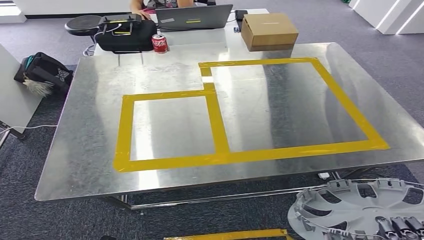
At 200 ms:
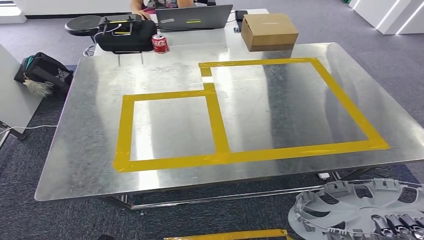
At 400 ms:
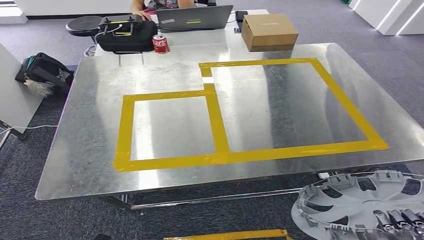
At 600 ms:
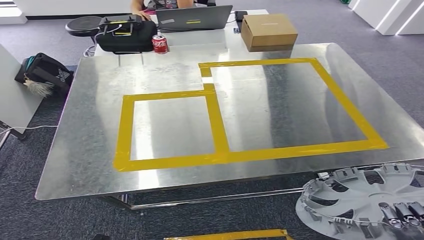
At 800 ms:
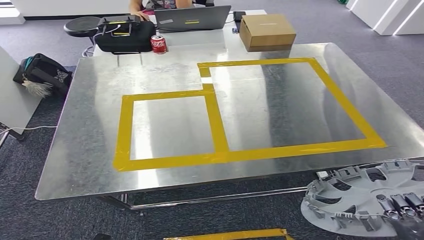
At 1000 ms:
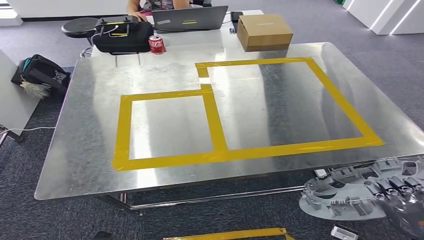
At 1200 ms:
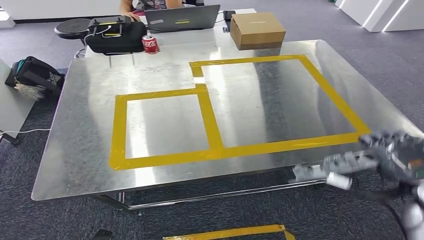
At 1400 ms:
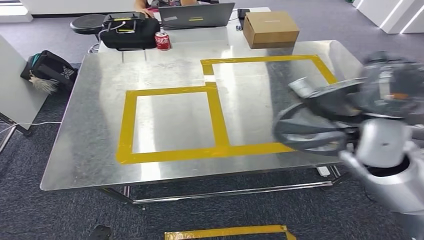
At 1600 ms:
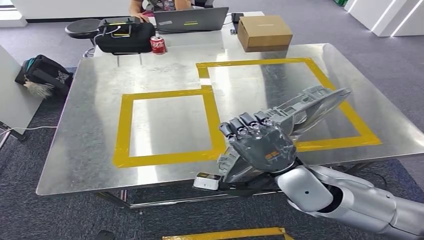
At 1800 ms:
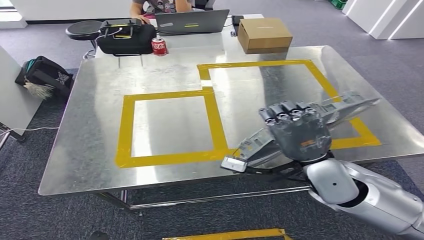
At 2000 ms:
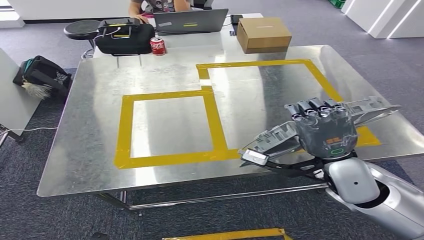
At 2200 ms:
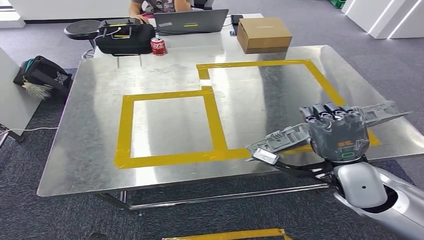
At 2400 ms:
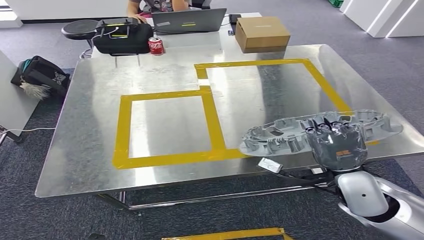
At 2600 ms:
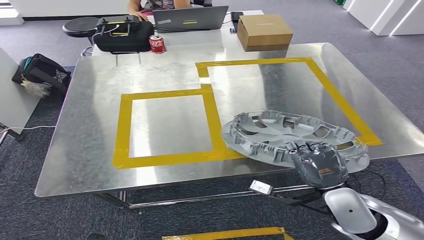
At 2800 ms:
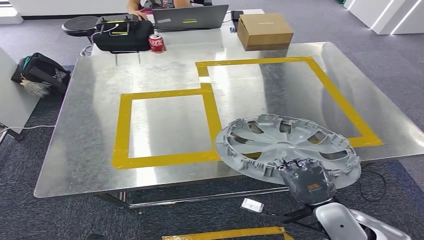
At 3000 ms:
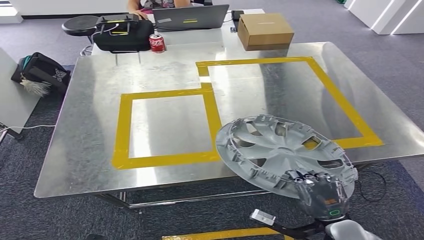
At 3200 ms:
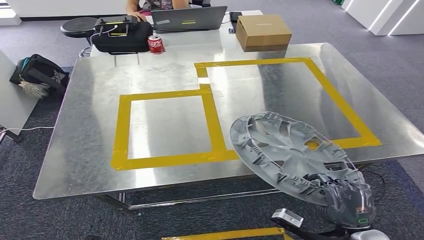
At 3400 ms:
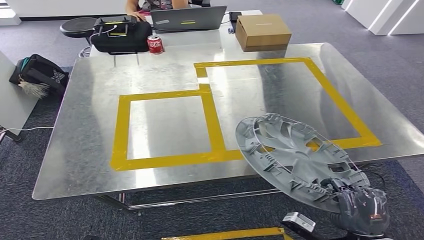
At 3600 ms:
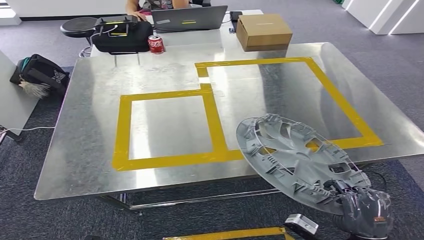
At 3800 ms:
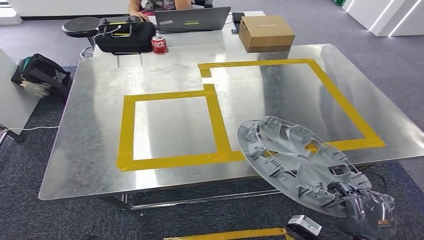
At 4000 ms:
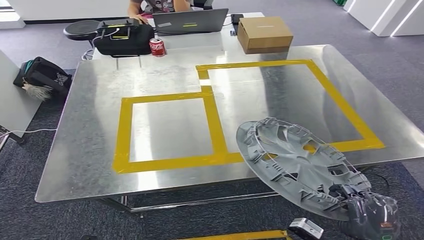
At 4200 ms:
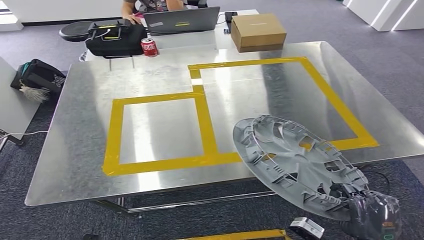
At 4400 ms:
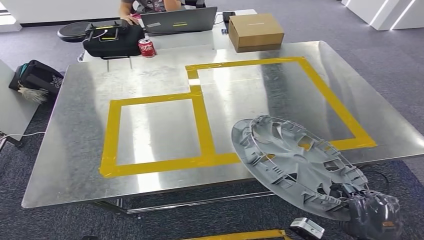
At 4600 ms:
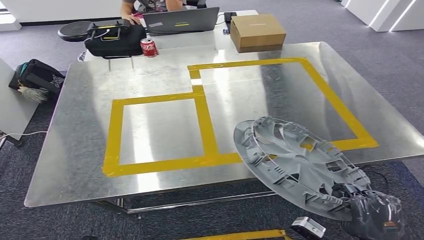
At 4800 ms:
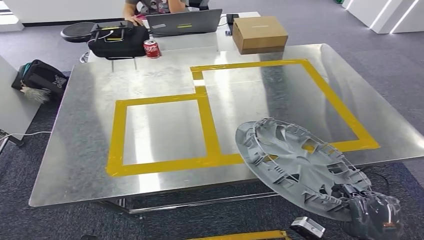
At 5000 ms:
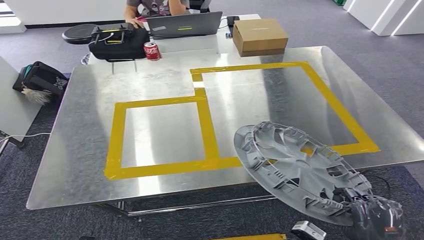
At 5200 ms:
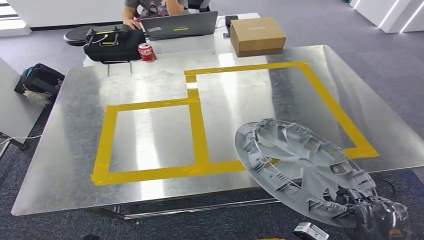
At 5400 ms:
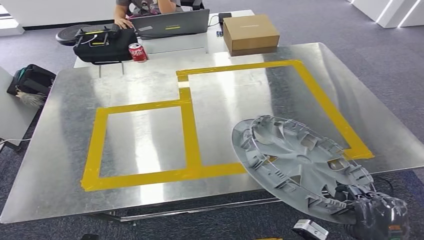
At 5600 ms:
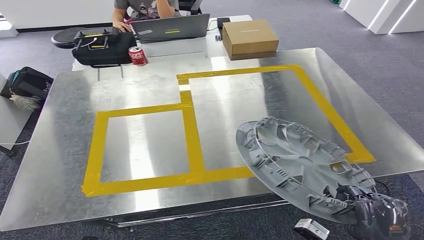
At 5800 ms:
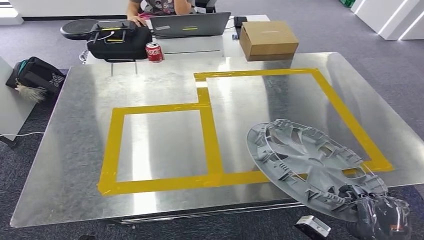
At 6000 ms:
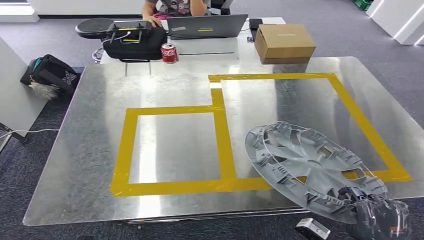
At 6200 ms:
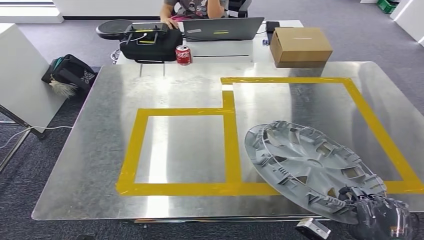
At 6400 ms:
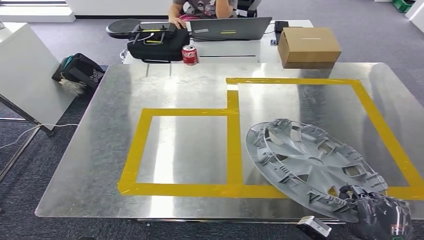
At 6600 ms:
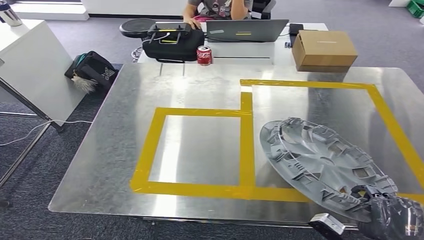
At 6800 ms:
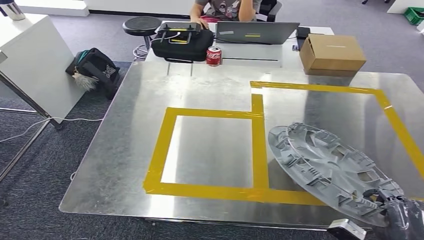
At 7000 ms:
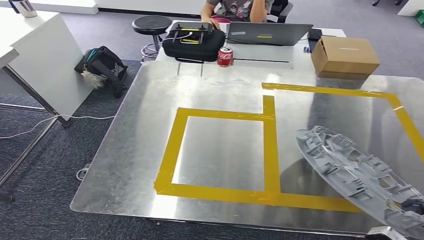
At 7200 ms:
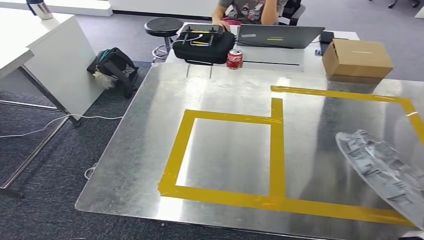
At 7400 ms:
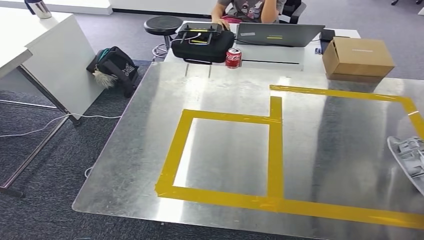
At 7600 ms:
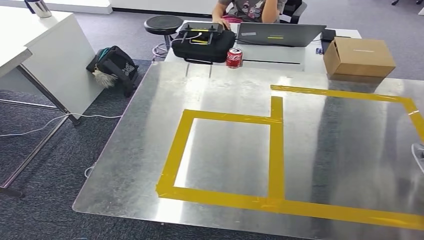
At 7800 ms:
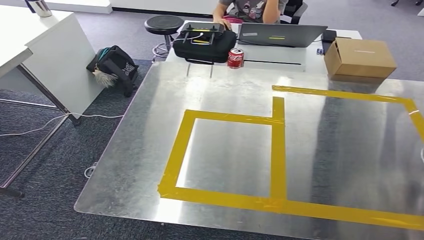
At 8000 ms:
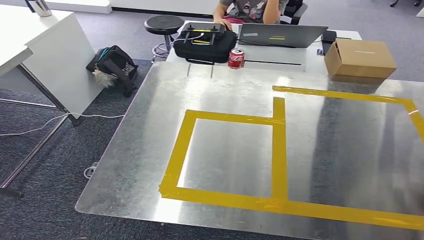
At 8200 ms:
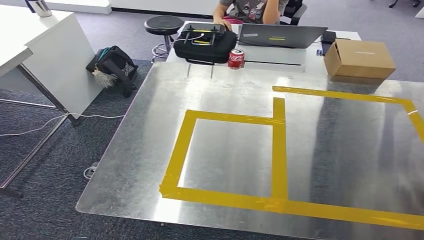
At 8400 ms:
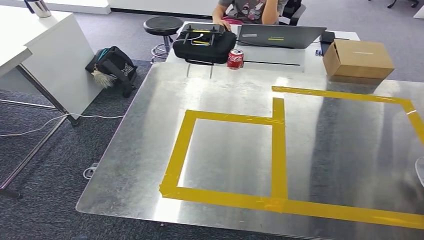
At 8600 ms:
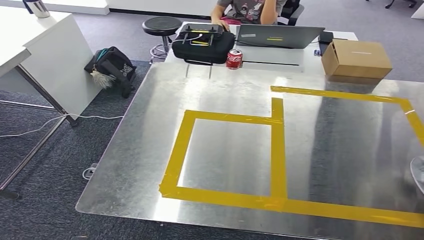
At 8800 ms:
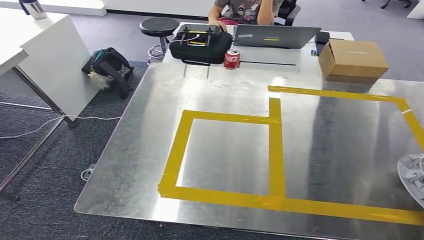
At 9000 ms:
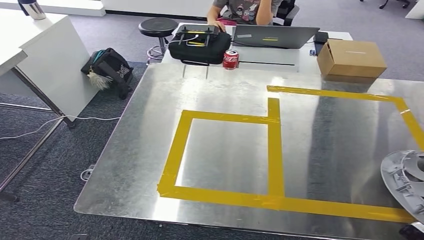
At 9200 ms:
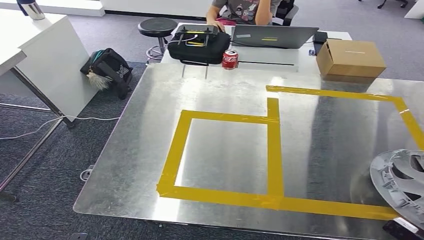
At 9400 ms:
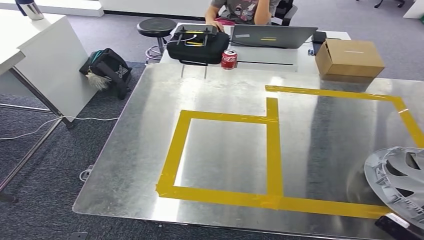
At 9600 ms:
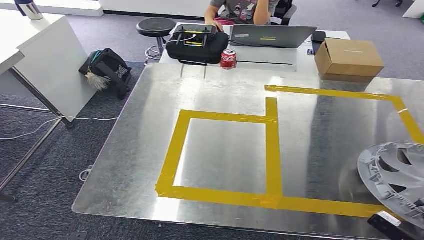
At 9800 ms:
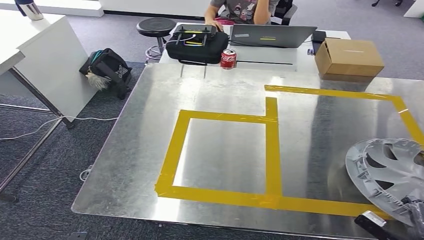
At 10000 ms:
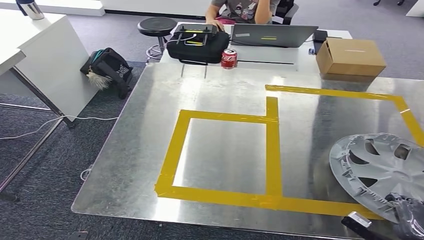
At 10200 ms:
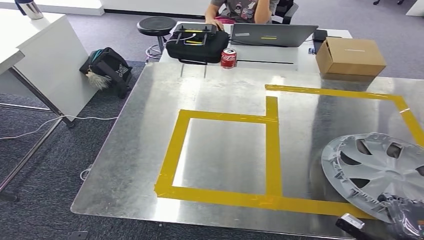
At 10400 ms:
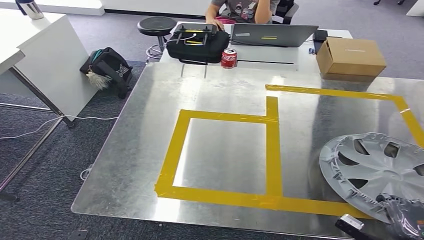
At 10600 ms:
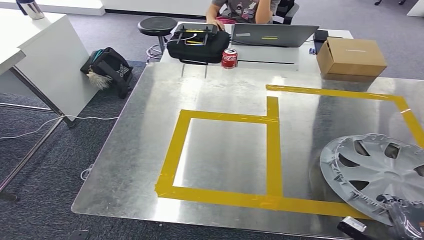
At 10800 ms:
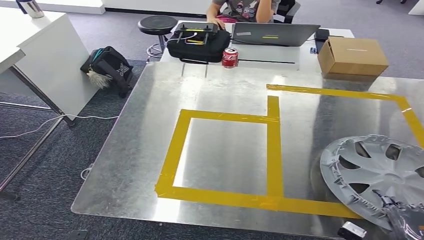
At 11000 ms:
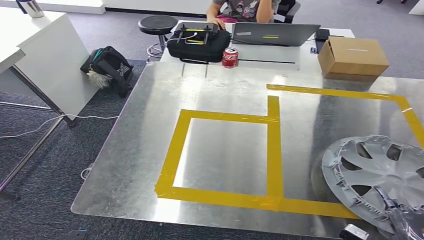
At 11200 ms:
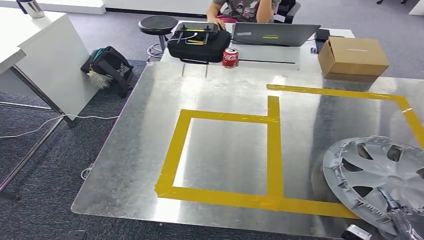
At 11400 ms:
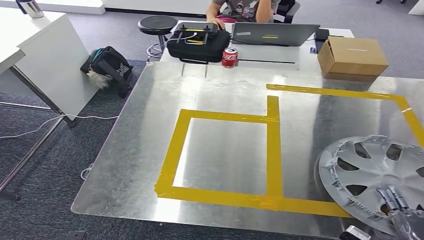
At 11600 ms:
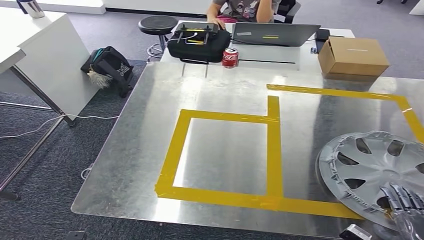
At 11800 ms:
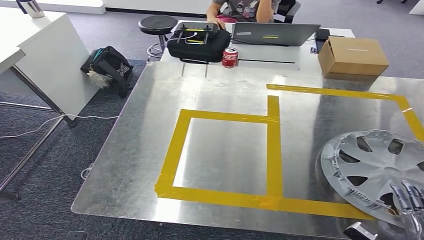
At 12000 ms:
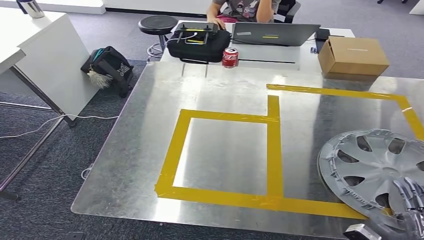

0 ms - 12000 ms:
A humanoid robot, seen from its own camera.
9000 ms - 10400 ms: The right hand is displaced to the left by about 10 cm.

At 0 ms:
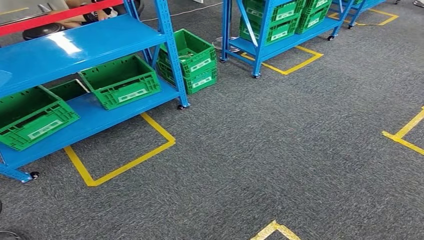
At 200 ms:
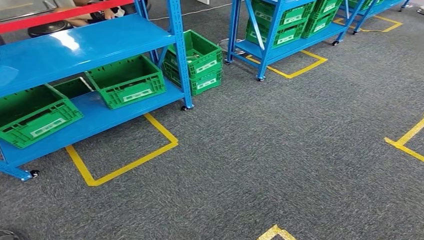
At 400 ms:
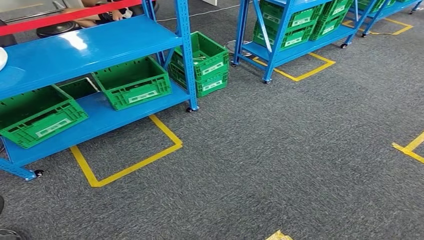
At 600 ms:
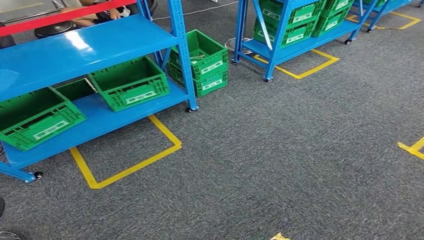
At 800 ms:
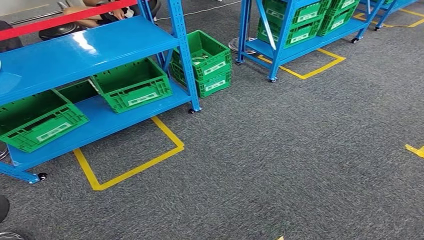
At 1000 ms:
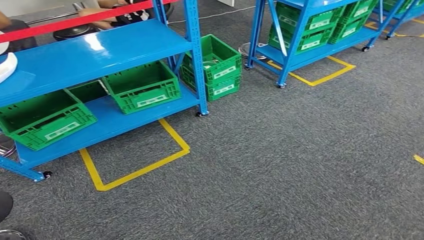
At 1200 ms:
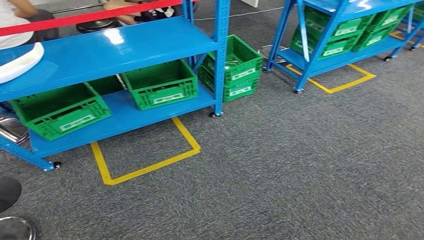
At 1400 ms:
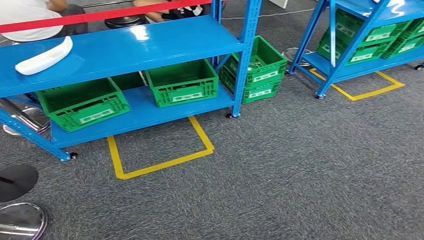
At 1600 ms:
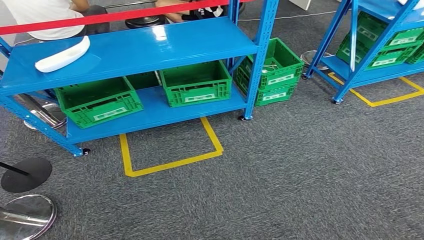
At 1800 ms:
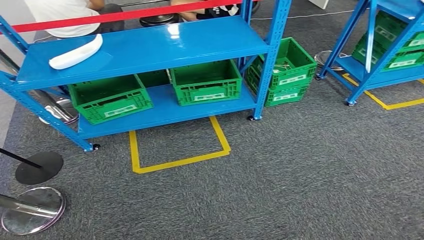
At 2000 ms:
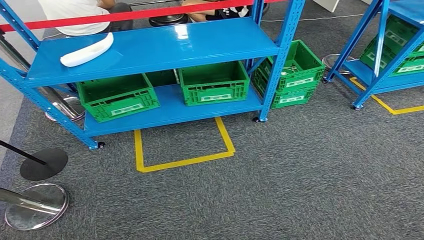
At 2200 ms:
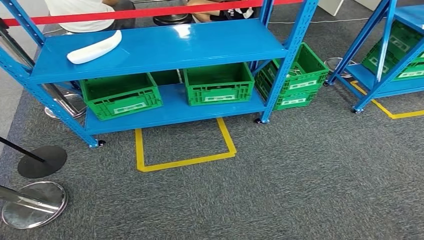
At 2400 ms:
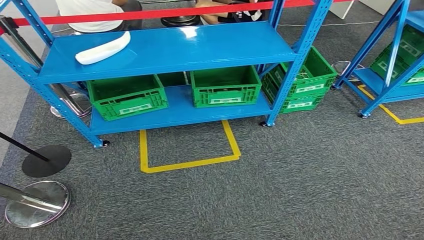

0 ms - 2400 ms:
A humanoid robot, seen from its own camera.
Step, 0 ms - 2400 ms: Return to the initial position at the workbench.

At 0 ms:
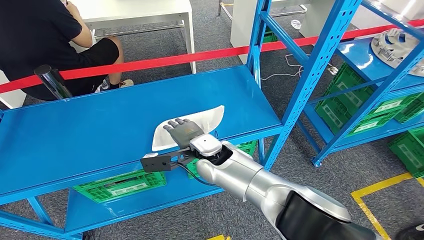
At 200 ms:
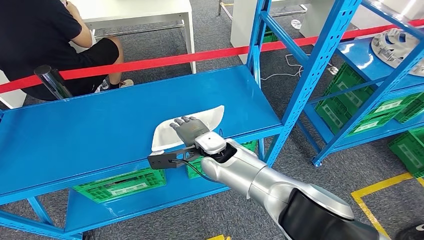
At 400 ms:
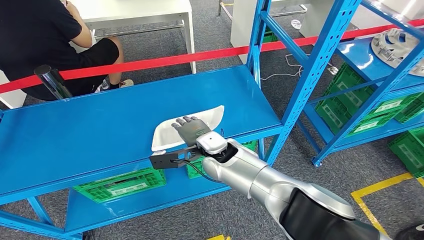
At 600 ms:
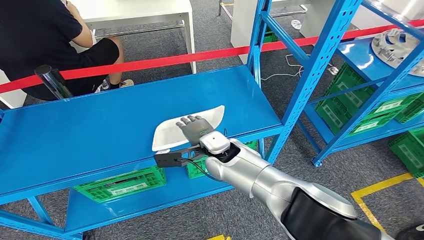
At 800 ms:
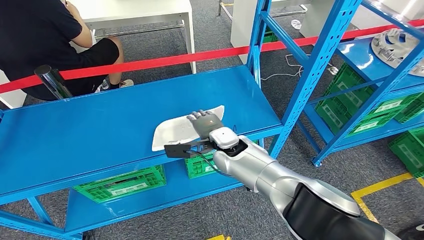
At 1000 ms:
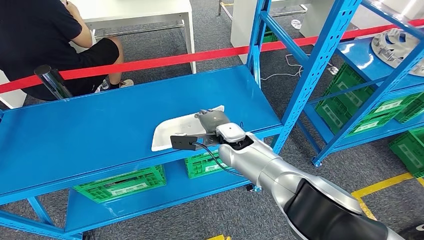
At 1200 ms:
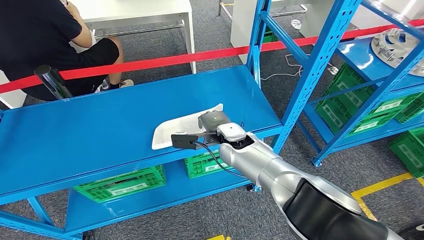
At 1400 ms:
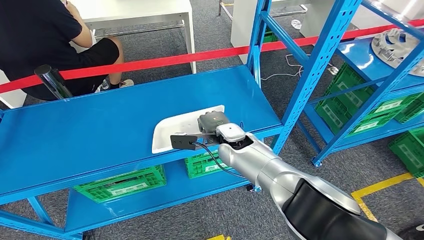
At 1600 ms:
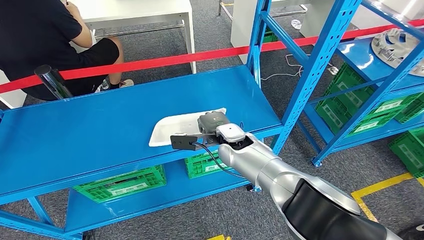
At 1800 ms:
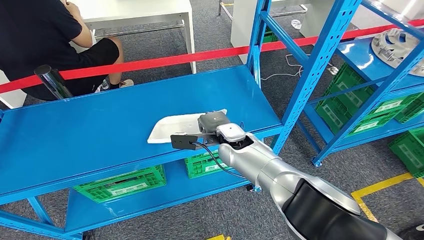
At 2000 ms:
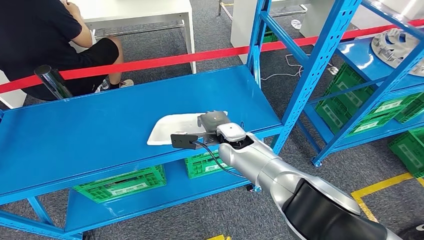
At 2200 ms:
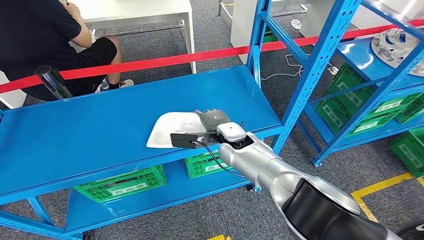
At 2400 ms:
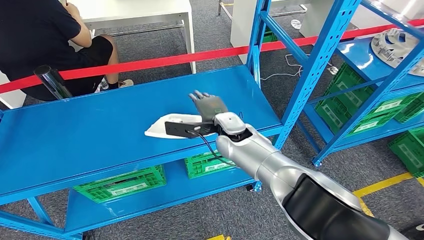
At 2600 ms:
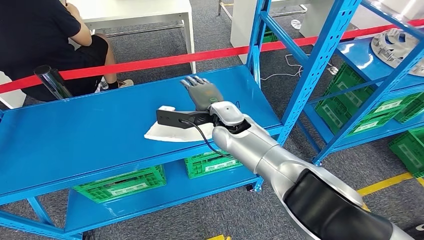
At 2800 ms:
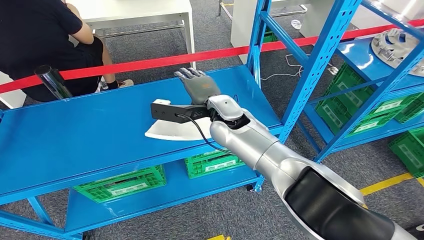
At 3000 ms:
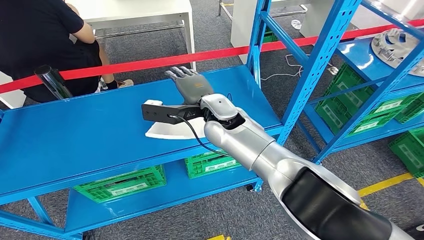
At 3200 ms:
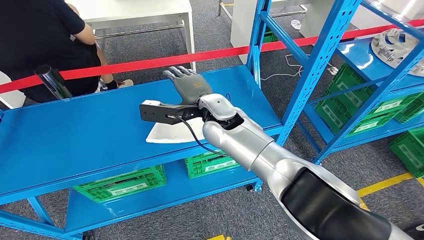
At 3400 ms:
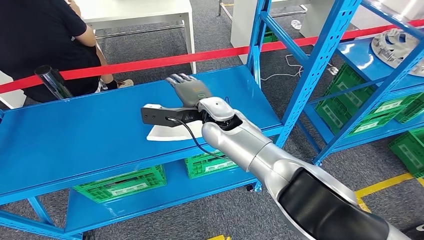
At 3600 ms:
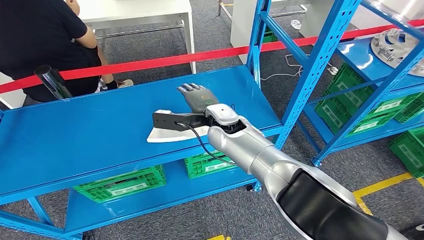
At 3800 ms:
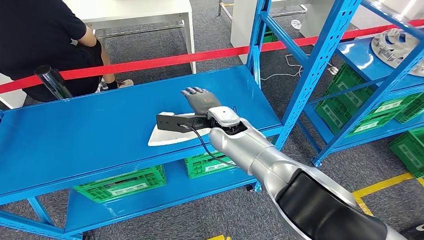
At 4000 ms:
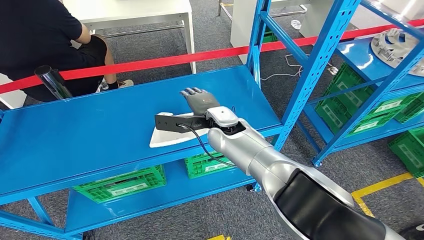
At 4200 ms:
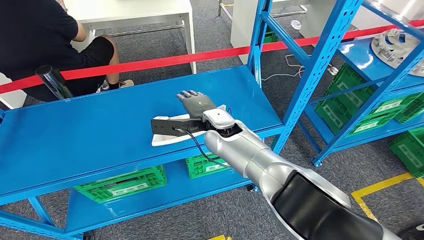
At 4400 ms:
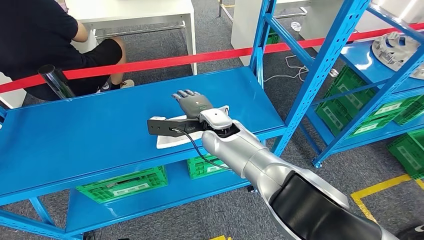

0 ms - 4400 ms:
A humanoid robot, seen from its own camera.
0 ms - 1400 ms: The right hand is displaced to the right by about 5 cm.
1400 ms - 3000 ms: The right hand goes approximately 10 cm upward.
